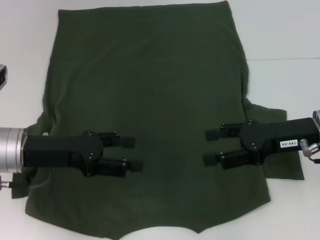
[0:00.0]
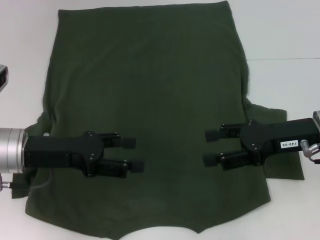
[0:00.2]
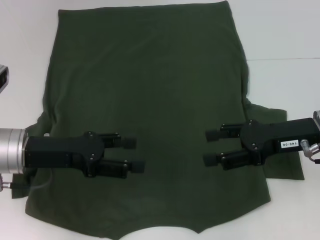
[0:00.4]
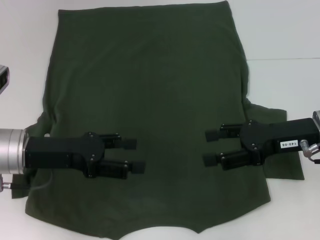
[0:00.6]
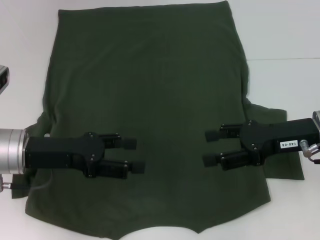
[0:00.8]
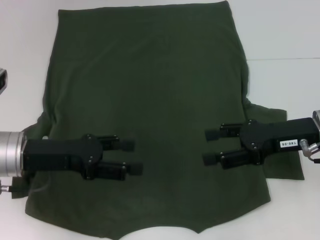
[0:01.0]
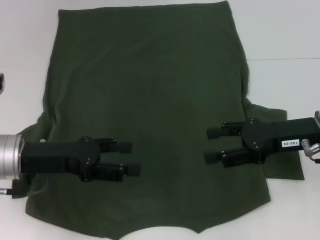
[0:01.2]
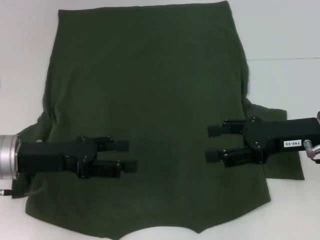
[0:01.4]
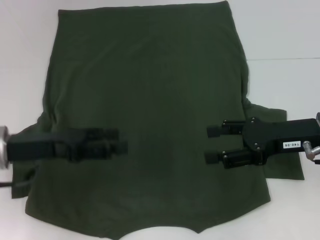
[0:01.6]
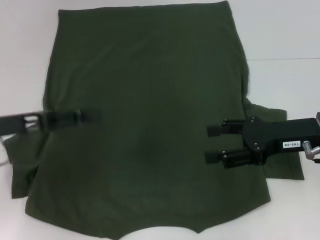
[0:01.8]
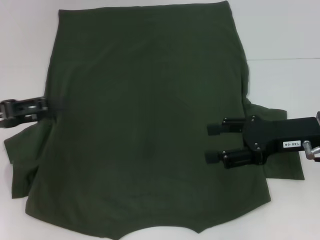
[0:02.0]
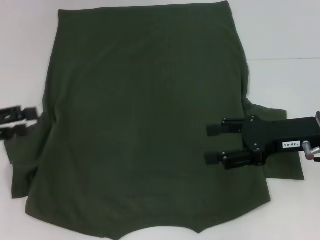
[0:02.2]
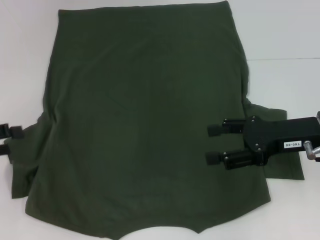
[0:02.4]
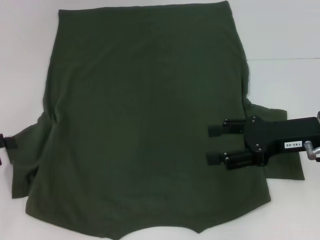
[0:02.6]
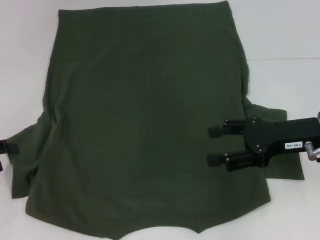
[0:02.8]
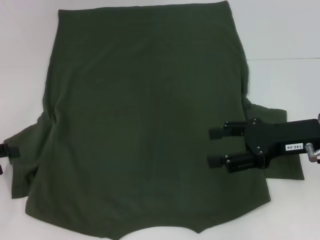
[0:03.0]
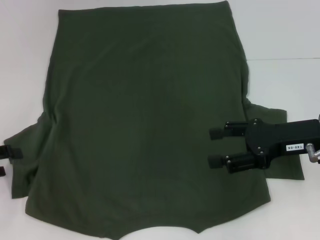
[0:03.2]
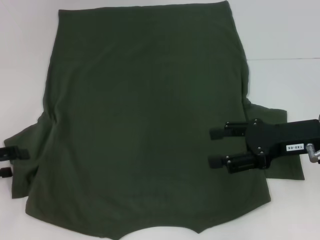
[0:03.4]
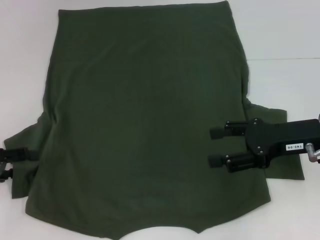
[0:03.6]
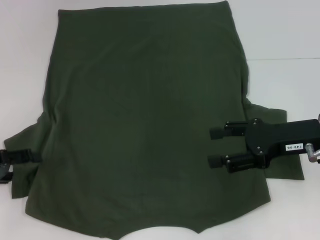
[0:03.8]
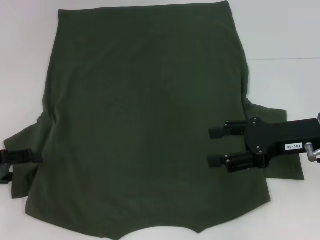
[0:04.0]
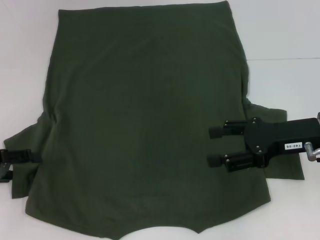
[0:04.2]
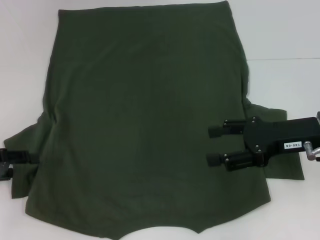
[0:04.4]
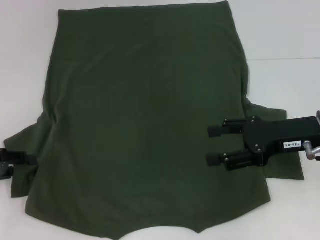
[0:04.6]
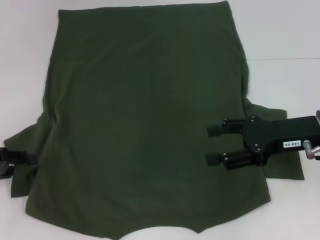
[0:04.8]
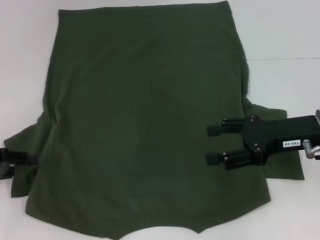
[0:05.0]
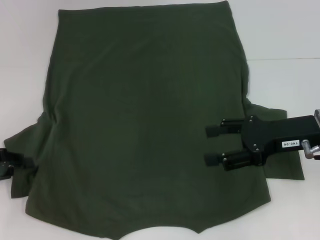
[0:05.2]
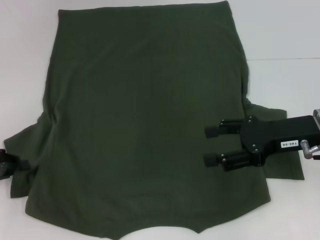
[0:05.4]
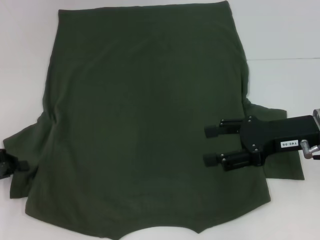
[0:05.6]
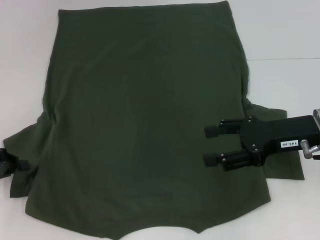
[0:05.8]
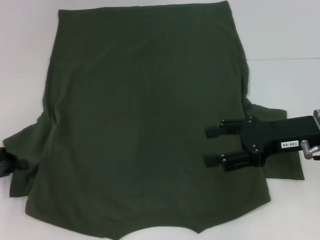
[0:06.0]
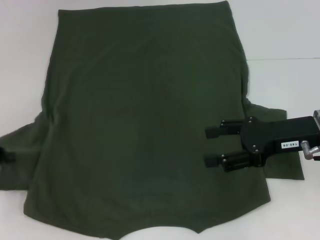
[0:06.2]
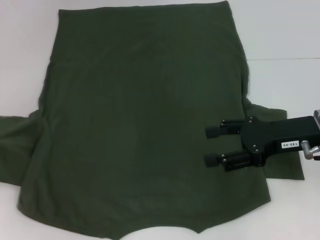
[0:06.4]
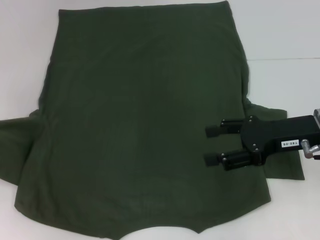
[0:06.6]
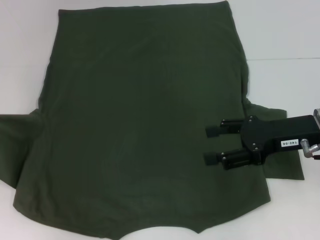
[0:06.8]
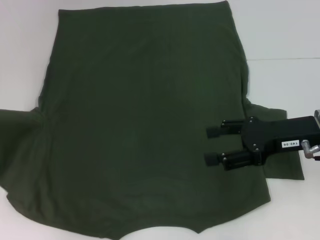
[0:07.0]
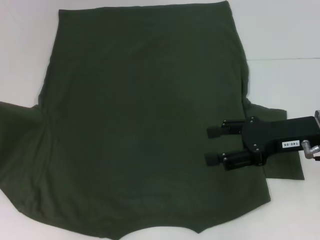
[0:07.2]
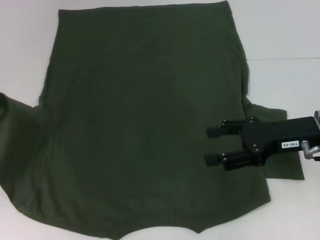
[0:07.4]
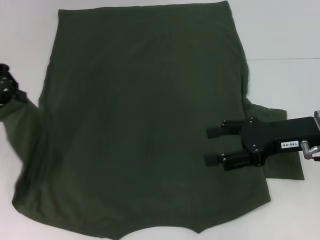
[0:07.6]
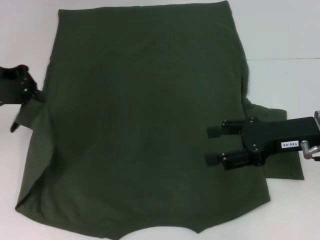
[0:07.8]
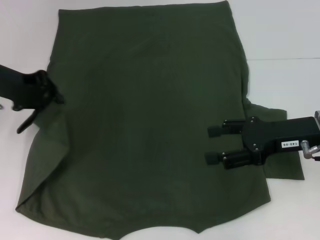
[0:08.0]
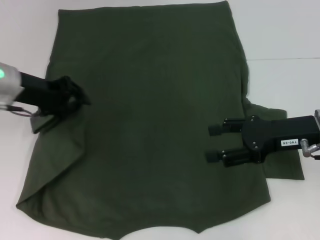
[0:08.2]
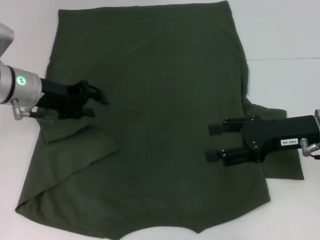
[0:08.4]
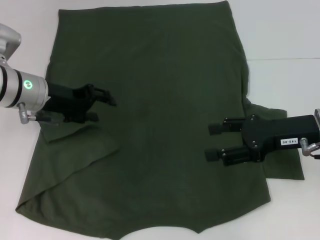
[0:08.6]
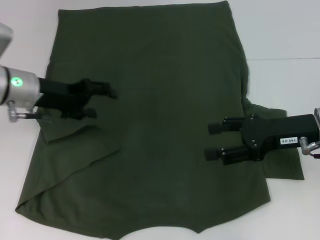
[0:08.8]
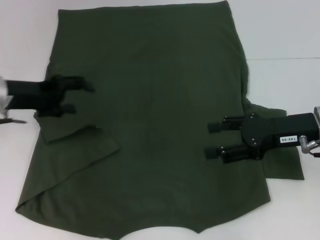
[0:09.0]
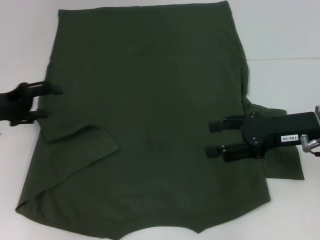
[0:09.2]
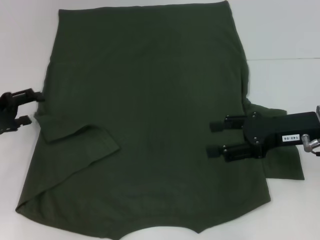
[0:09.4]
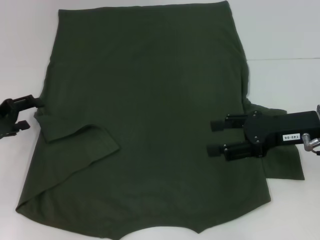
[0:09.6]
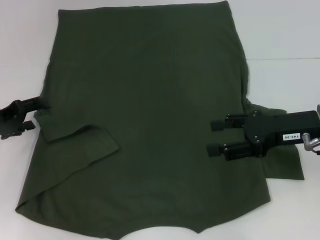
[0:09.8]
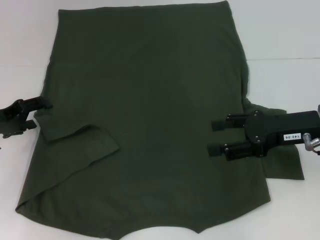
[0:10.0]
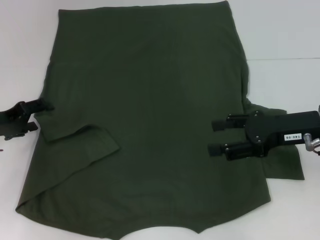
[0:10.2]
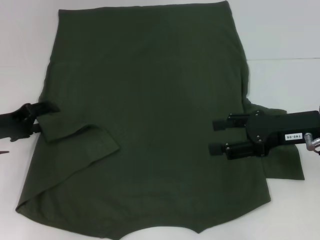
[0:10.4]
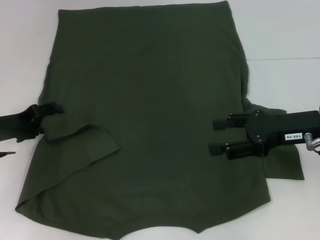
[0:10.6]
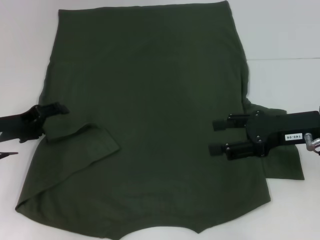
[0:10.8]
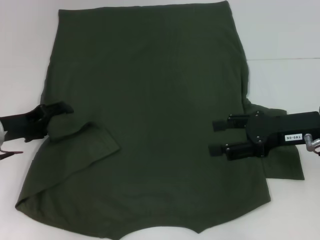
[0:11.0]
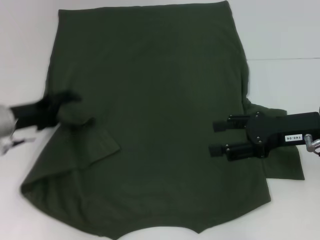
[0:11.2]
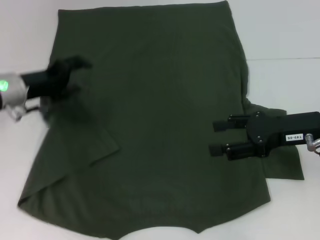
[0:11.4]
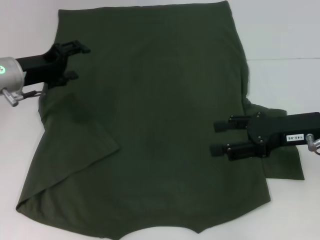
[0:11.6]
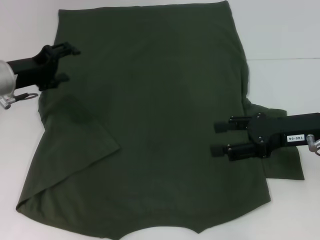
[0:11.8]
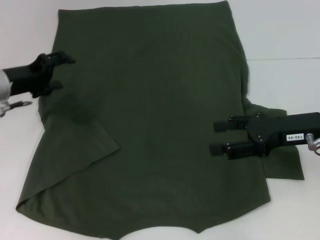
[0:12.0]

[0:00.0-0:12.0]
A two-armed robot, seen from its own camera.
Step, 0:00.0 to 0:11.6: Fold the bottom left sleeve with your left hand.
0:00.0 to 0:01.6: The grippers stay close to where they were, moving slightly.
0:01.6 to 0:03.0: The left gripper travels to the left by roughly 15 cm.
0:03.0 to 0:04.4: The grippers make only small movements.
0:04.4 to 0:06.0: The left gripper closes.
0:06.0 to 0:07.6: The left gripper moves upward and forward, about 15 cm.
0:07.6 to 0:09.0: The left gripper shifts about 10 cm downward and to the right, and opens up.
0:09.0 to 0:10.4: The left gripper goes roughly 5 cm downward.
0:10.4 to 0:12.0: The left gripper shifts approximately 5 cm forward.

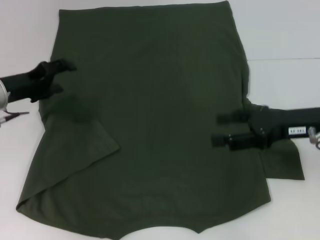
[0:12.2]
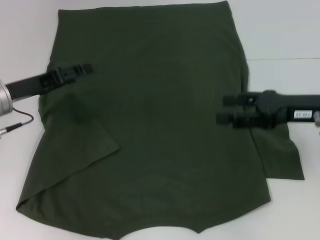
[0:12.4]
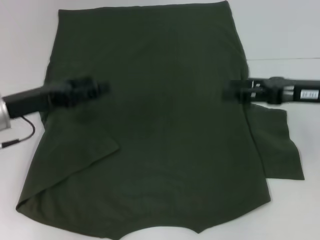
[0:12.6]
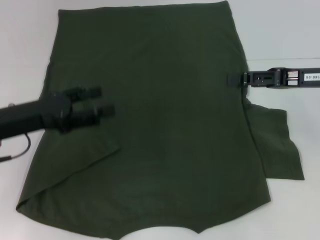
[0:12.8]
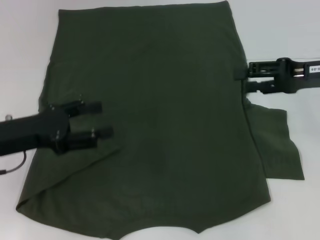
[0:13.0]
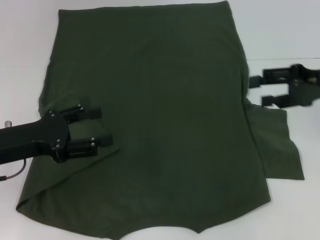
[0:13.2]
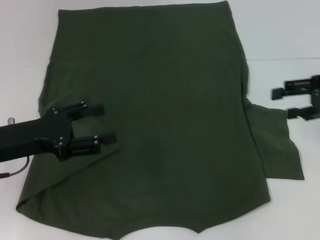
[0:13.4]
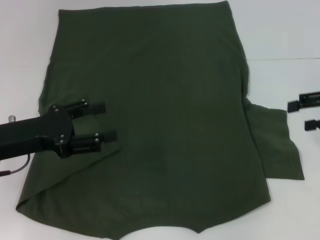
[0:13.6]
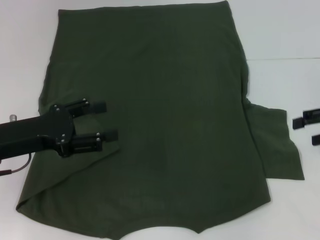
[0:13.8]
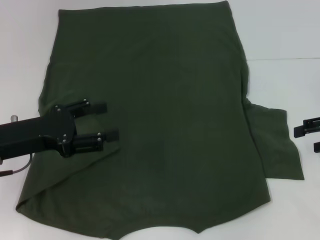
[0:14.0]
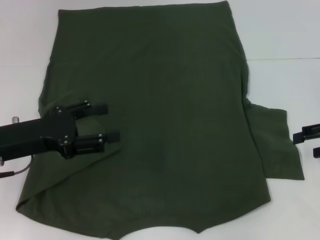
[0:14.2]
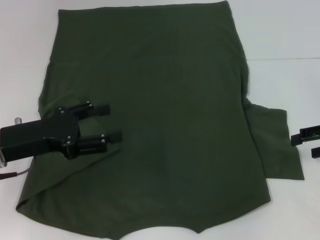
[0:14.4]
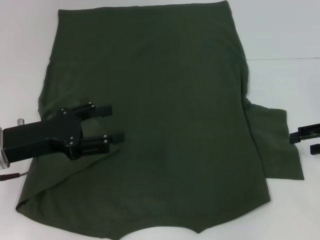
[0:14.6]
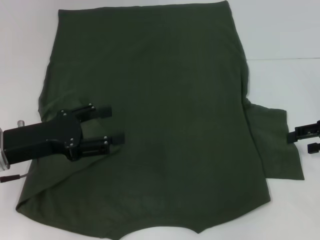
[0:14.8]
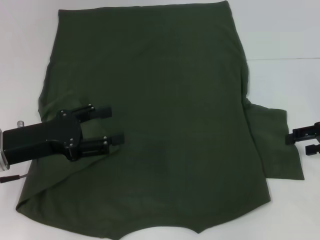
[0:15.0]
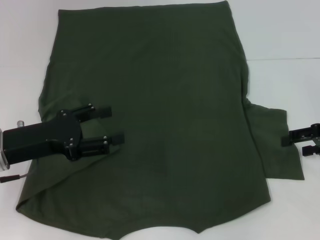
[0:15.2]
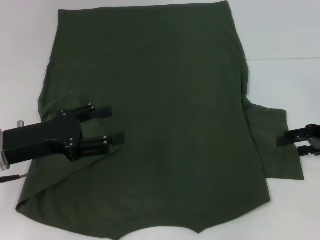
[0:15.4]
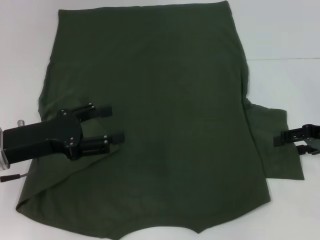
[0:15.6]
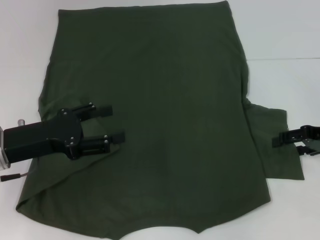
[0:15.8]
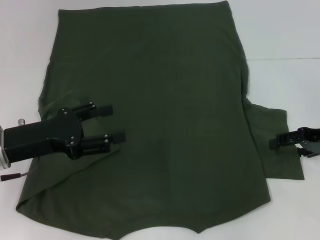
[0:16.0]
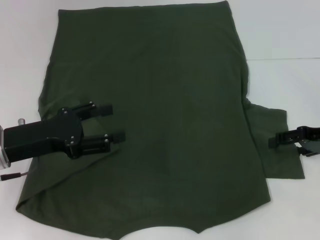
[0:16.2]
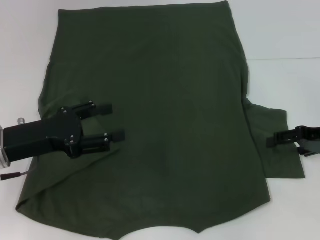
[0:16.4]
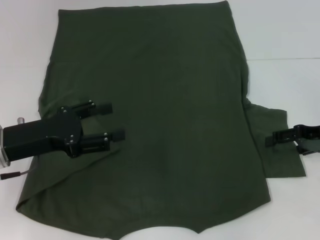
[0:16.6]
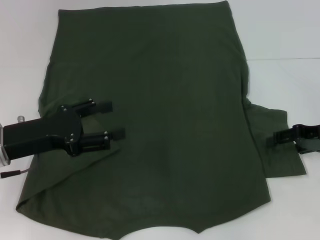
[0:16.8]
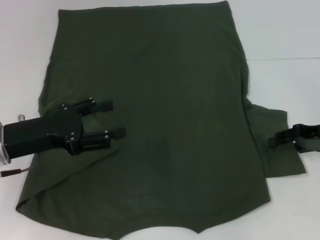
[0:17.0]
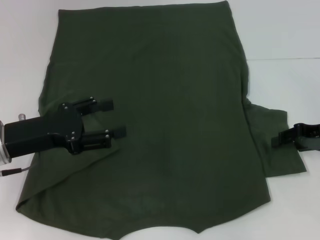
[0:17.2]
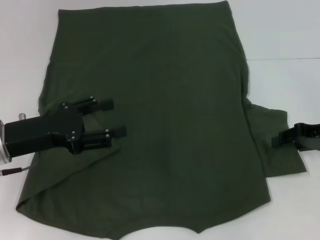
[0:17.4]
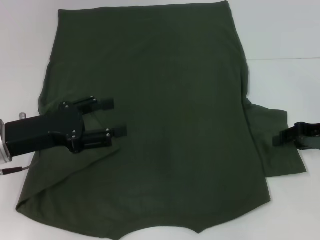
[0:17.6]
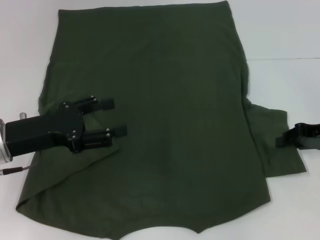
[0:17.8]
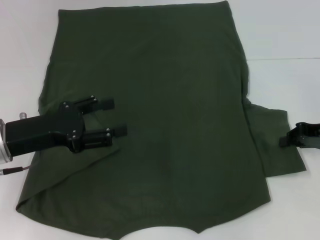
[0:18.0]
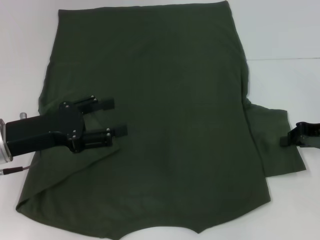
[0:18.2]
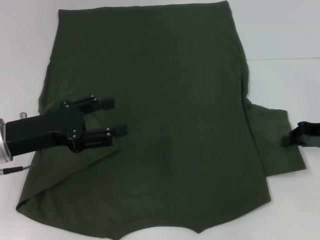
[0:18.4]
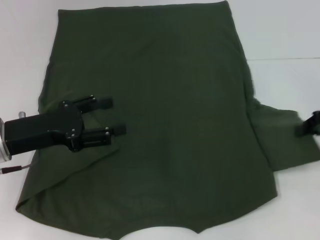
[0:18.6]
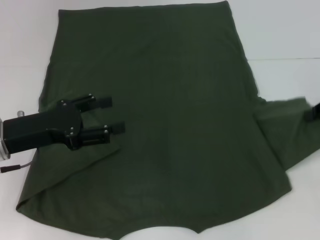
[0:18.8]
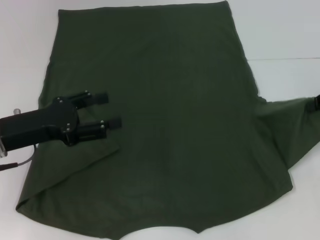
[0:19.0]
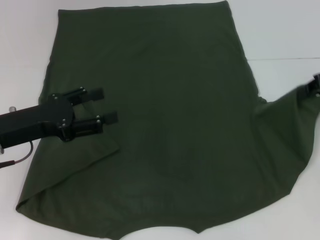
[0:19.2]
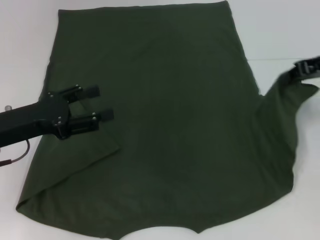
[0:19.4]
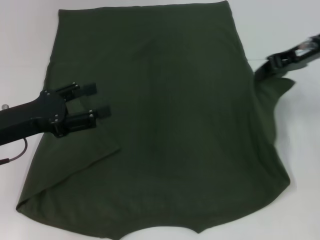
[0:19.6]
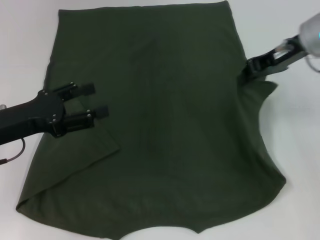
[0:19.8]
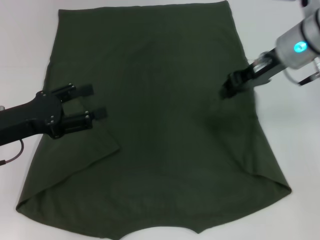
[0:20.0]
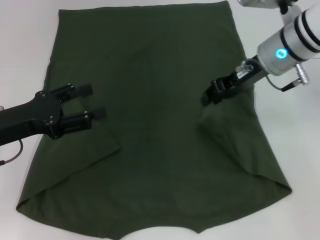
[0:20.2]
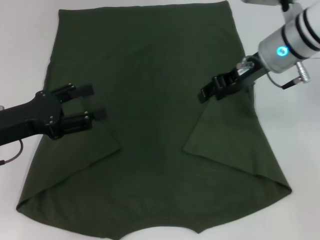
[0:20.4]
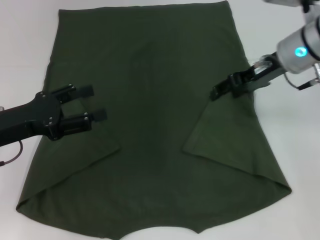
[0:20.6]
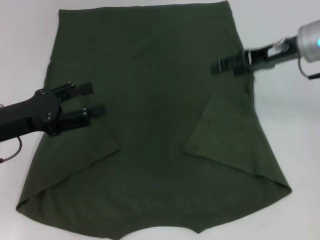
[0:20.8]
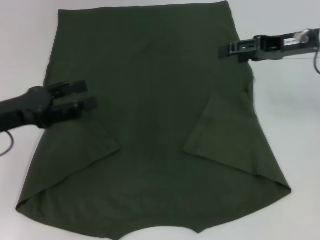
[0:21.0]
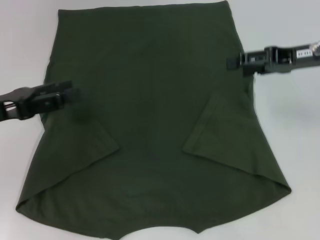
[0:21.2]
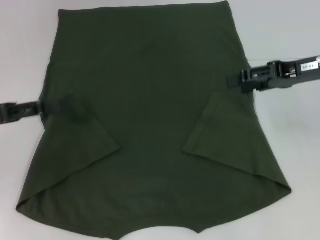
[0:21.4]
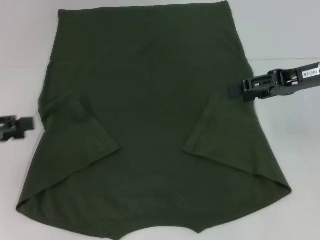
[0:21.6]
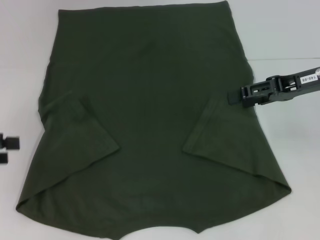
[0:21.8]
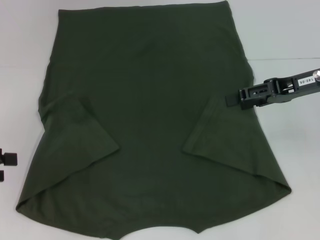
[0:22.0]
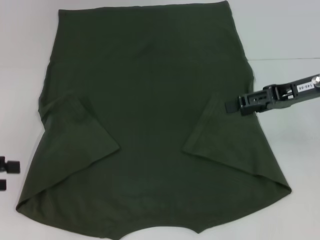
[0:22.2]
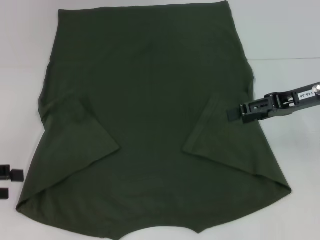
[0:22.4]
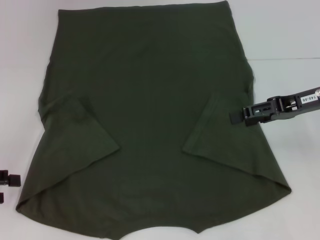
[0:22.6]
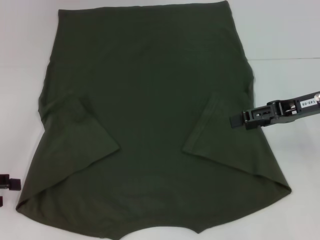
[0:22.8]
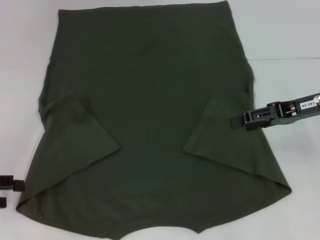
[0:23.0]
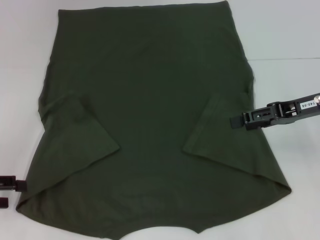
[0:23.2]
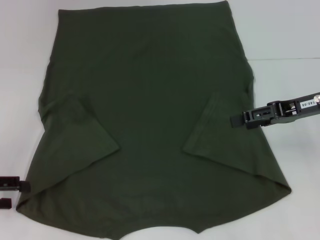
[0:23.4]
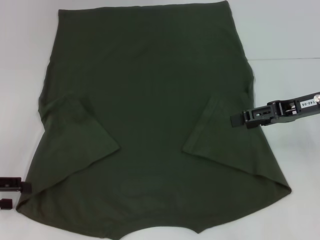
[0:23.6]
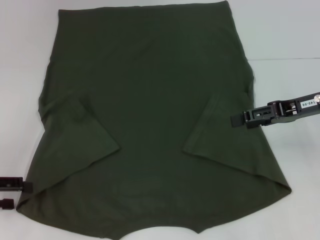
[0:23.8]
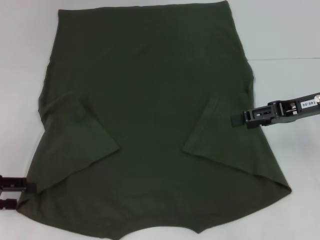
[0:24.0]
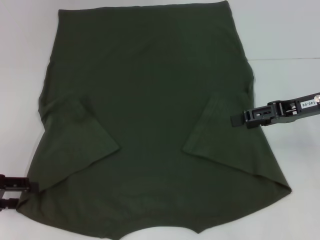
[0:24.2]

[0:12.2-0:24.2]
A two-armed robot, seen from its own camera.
Step, 0:12.2 to 0:21.0: Fold the bottom right sleeve with your right hand.
0:12.2 to 0:13.8: The left gripper goes some 10 cm backward. Meanwhile the right gripper heads to the right, covering about 10 cm.
0:13.8 to 0:15.2: There are only small adjustments of the grippers.
0:15.2 to 0:16.6: There are only small adjustments of the grippers.
0:16.6 to 0:18.2: The right gripper closes its fingers.
0:18.2 to 0:19.8: The right gripper shifts about 15 cm upward, to the left and forward.
0:19.8 to 0:21.2: The right gripper heads to the right, covering approximately 5 cm, and opens its fingers.
0:21.2 to 0:22.6: The left gripper moves to the left, approximately 10 cm.
0:22.6 to 0:24.2: There are only small adjustments of the grippers.
